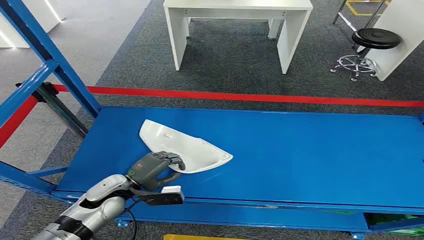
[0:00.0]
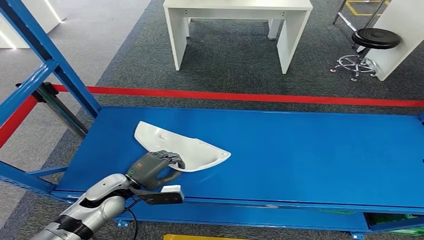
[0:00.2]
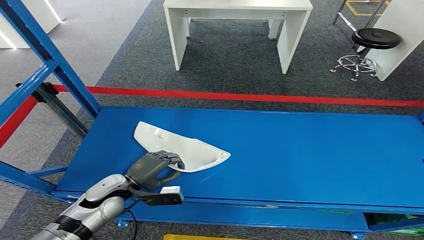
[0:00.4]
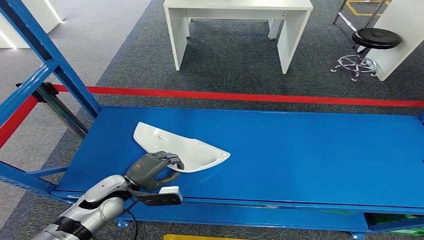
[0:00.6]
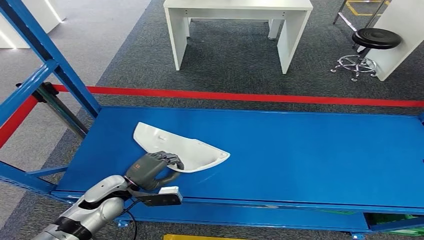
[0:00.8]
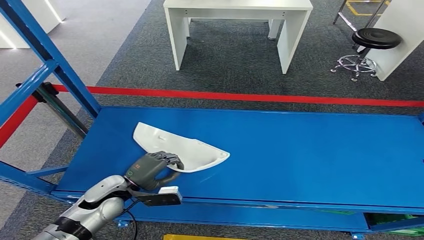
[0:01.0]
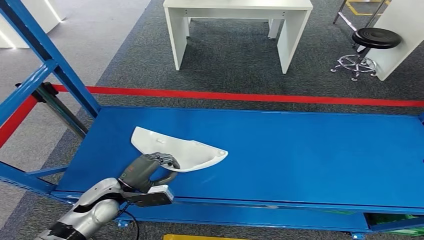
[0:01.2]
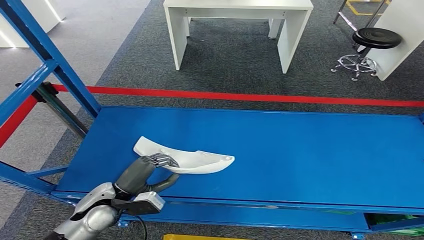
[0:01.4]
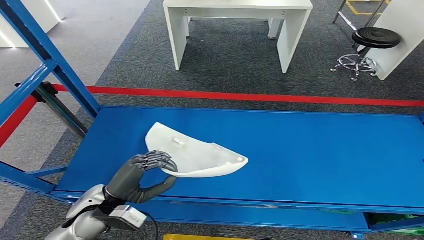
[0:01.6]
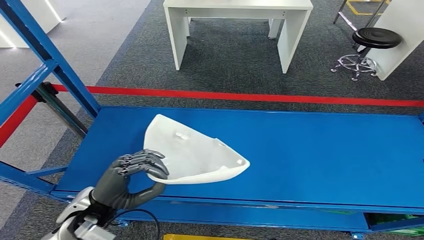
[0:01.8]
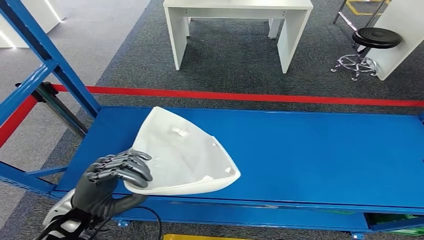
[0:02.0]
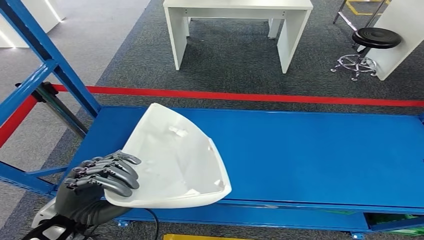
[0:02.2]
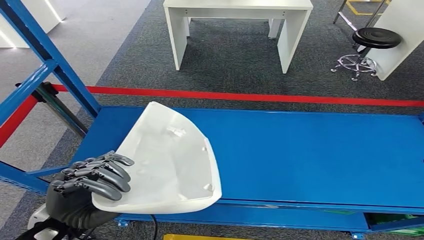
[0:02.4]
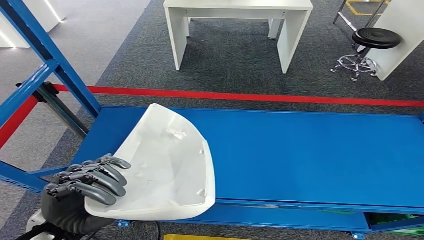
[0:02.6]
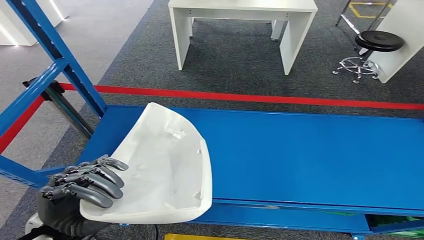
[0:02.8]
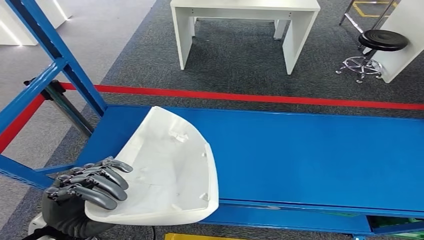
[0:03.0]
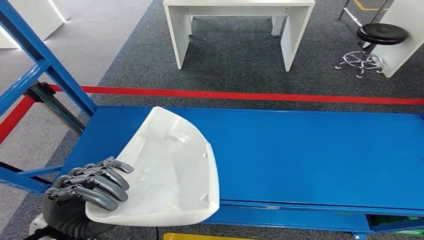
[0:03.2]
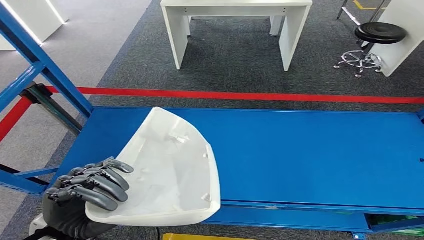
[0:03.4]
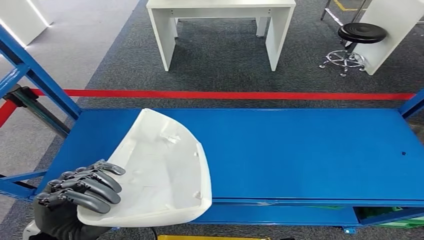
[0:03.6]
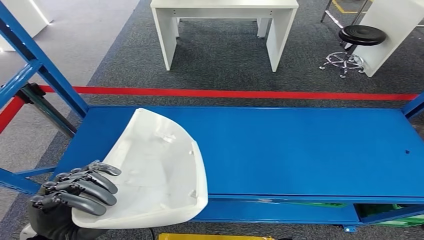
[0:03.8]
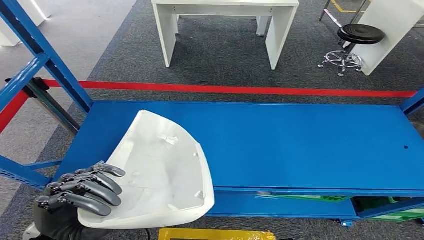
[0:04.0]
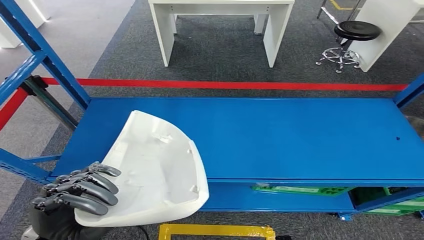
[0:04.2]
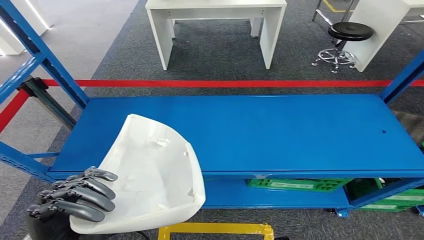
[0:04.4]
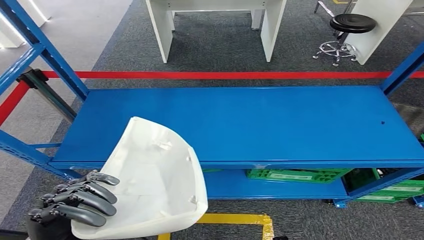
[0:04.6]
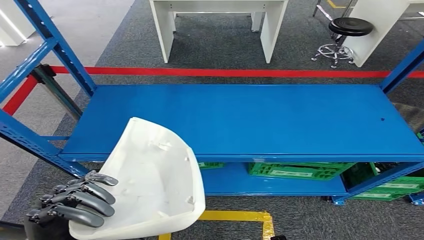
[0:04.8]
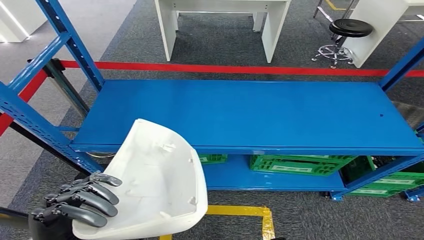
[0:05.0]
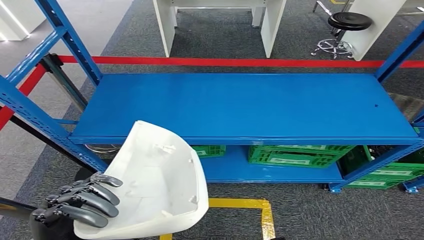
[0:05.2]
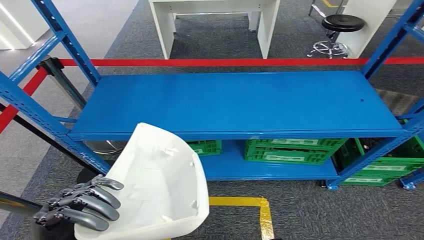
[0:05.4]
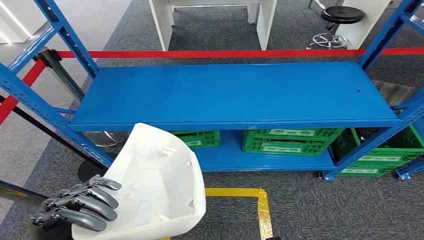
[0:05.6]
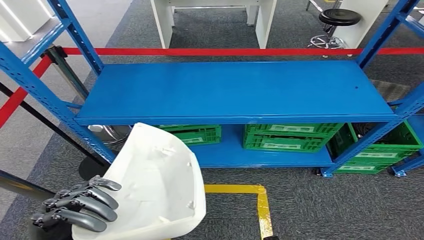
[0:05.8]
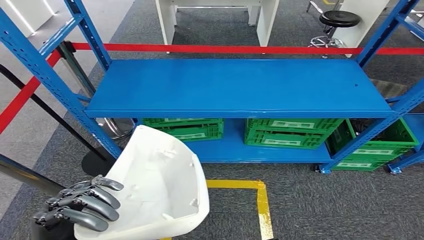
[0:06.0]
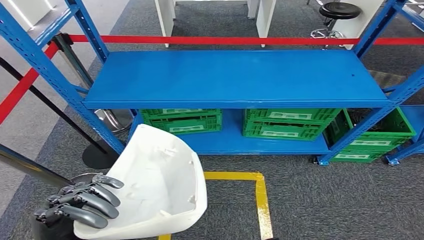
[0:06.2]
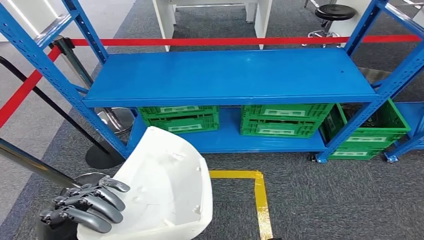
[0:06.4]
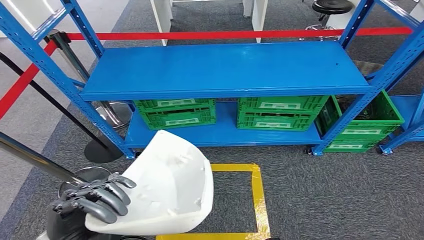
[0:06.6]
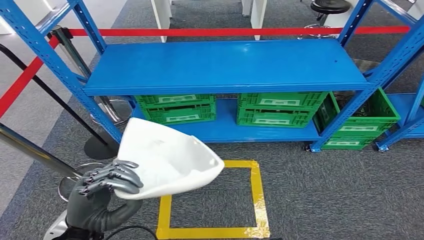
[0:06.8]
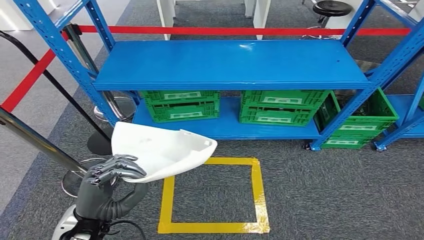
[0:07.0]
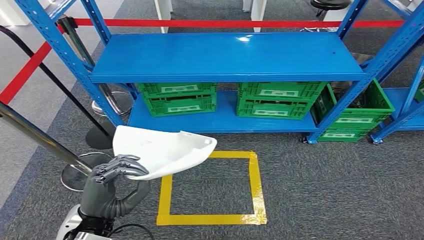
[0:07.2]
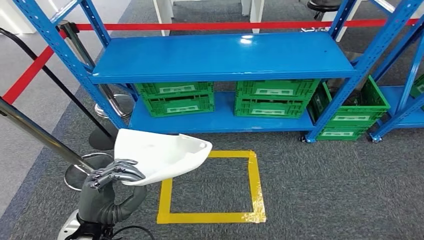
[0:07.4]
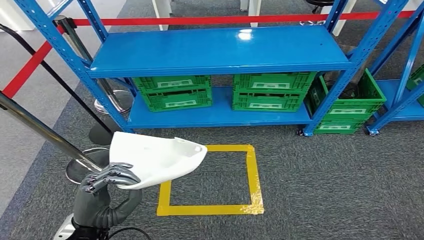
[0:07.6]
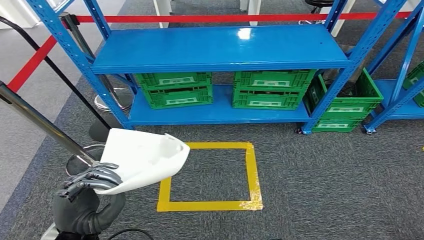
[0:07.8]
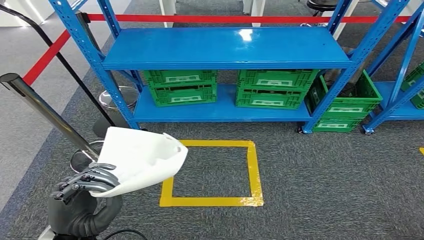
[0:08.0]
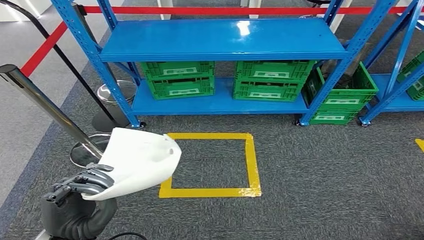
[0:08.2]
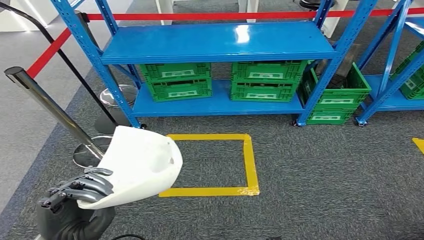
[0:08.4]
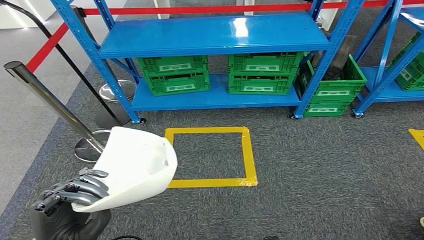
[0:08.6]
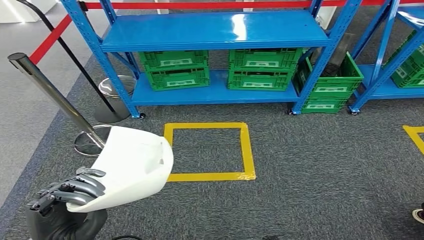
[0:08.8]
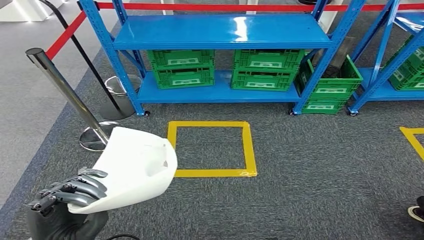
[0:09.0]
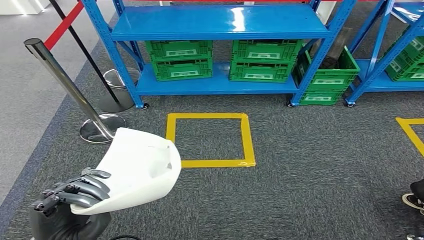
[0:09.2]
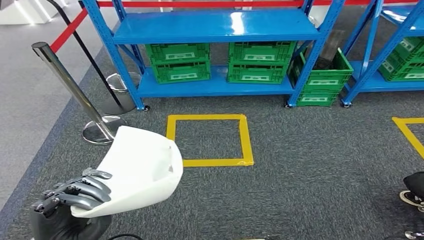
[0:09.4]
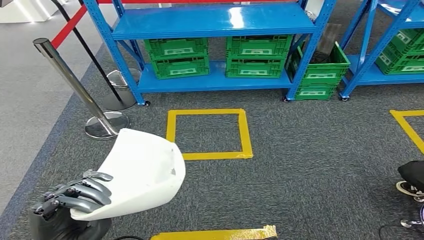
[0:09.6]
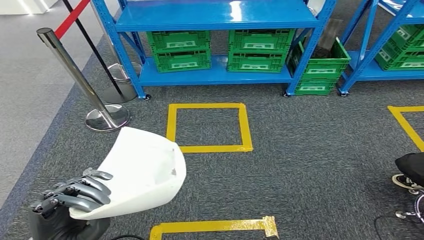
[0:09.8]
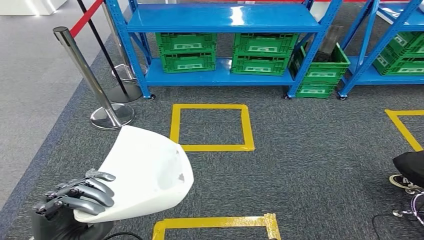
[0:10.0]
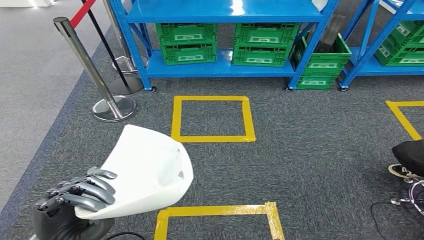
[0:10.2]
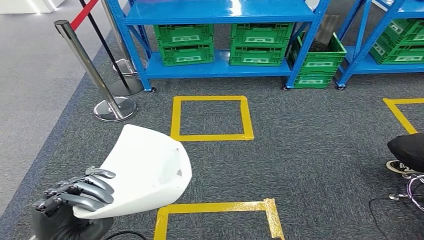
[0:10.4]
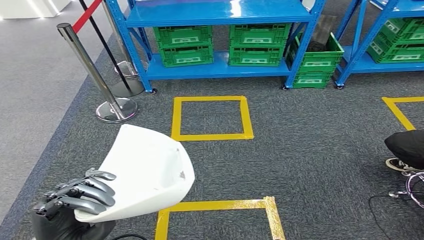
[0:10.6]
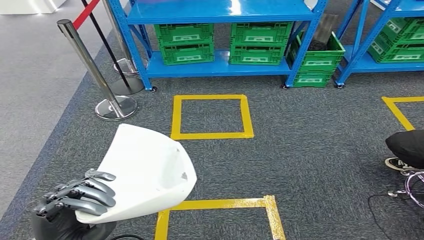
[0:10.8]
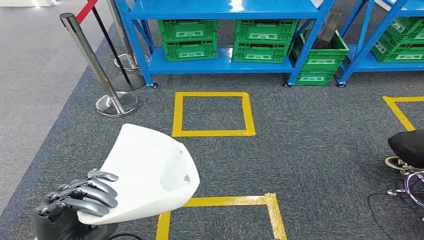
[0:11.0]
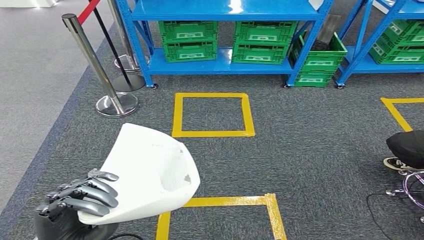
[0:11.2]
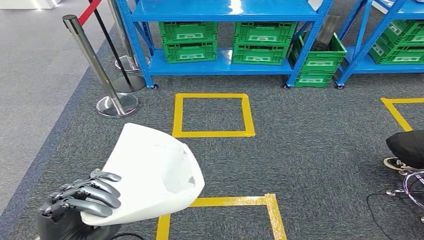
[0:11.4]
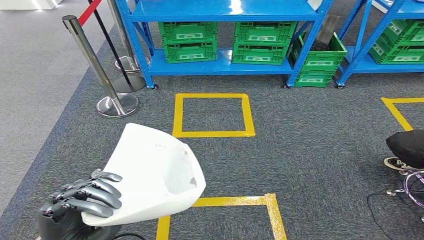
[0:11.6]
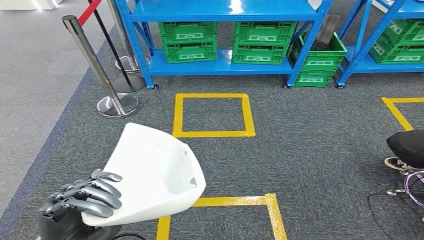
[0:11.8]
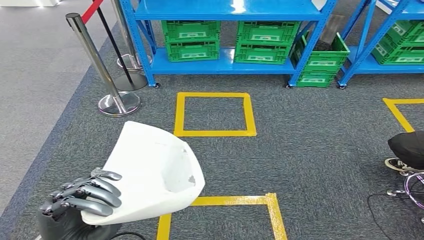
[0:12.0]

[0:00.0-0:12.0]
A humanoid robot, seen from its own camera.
Step, 0:00.0 to 0:02.2: Pick up the small component from the shelf.

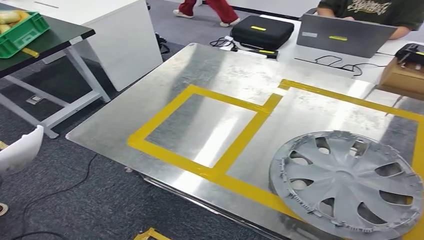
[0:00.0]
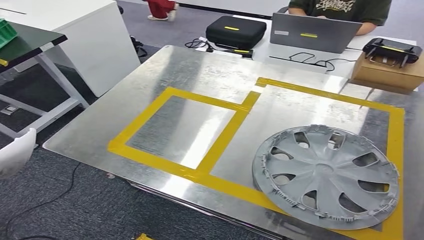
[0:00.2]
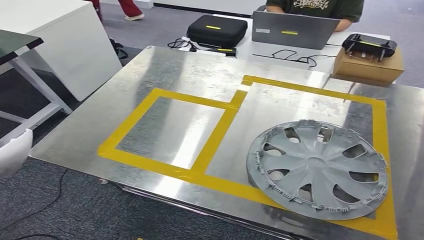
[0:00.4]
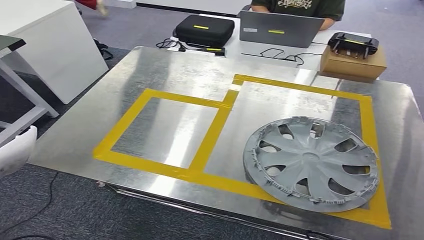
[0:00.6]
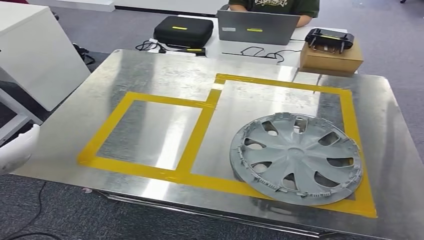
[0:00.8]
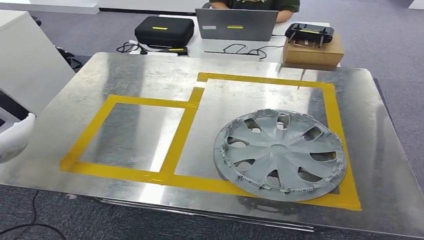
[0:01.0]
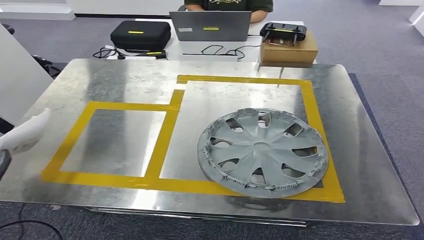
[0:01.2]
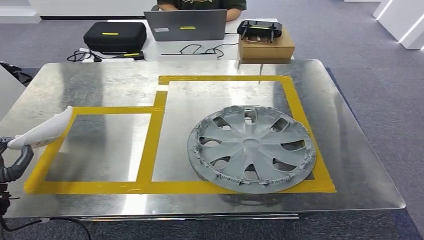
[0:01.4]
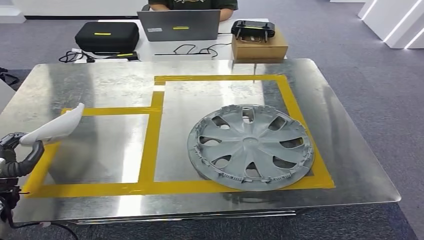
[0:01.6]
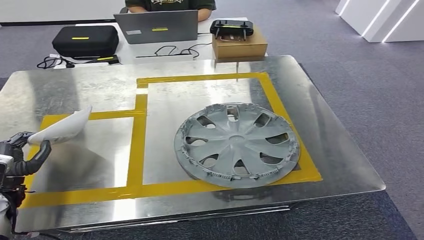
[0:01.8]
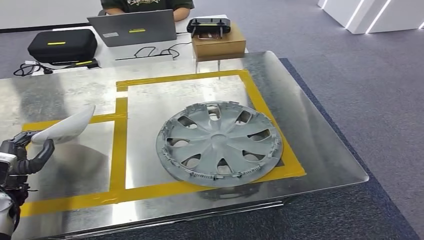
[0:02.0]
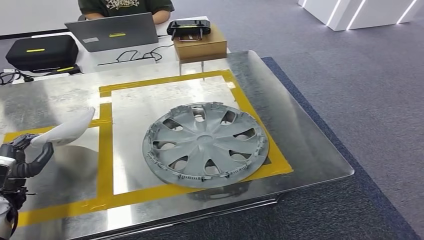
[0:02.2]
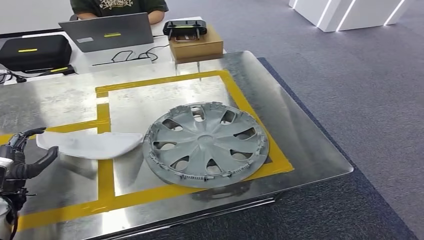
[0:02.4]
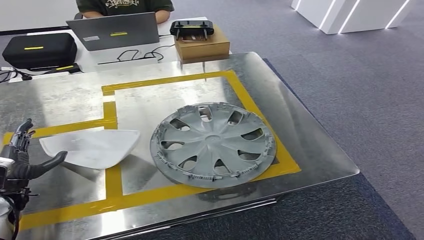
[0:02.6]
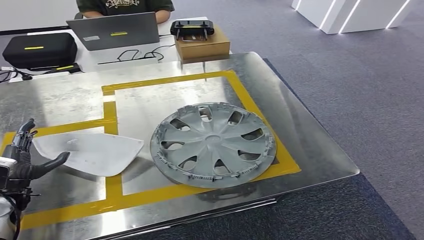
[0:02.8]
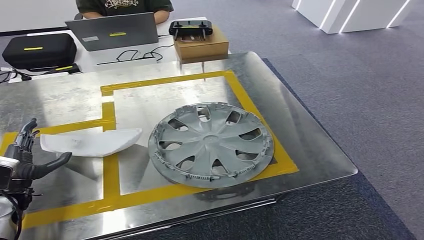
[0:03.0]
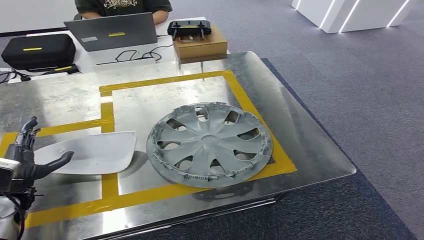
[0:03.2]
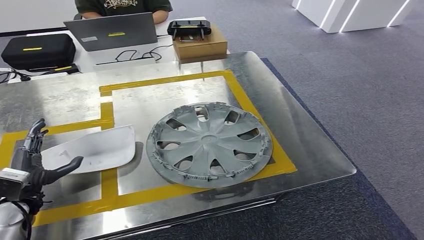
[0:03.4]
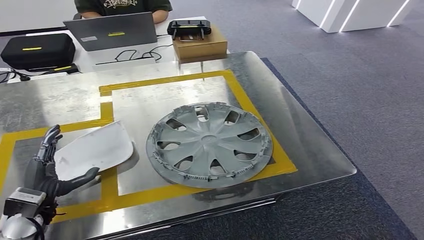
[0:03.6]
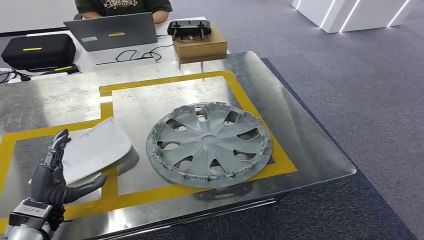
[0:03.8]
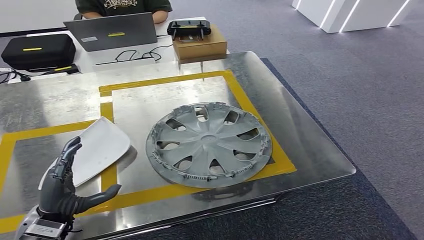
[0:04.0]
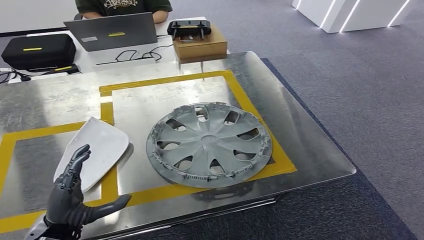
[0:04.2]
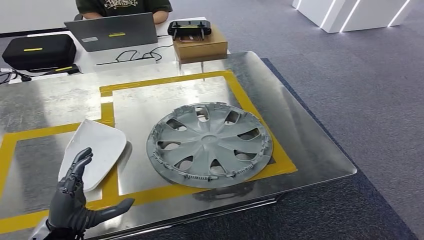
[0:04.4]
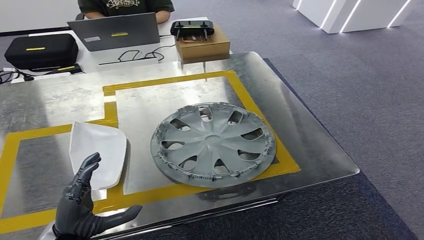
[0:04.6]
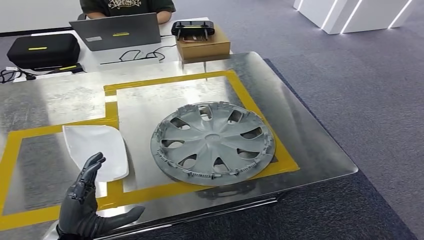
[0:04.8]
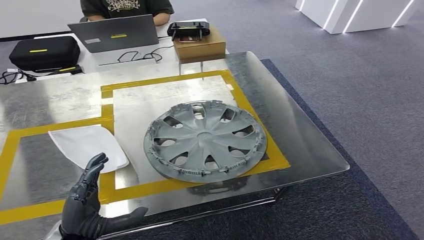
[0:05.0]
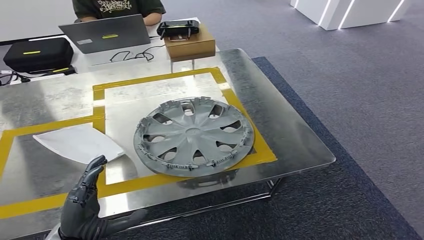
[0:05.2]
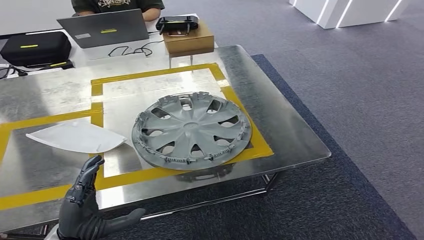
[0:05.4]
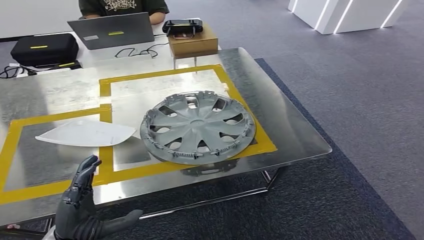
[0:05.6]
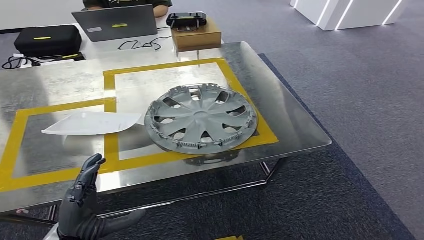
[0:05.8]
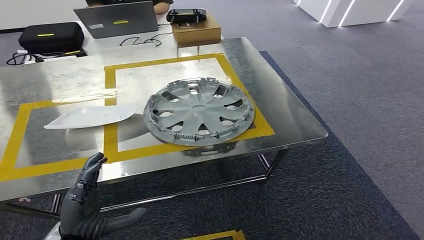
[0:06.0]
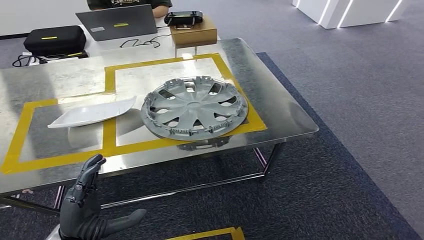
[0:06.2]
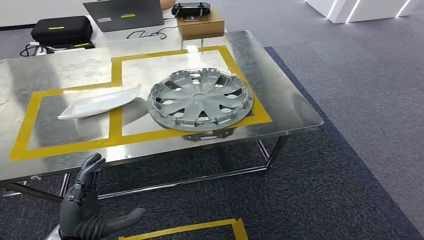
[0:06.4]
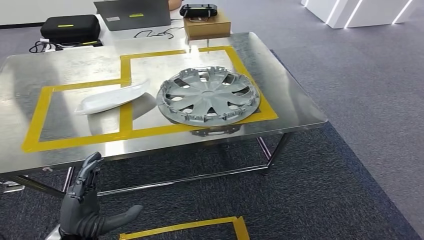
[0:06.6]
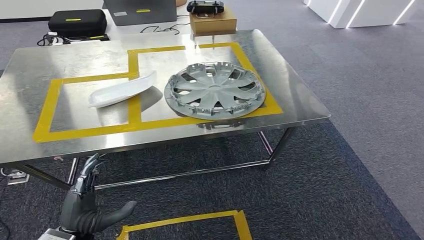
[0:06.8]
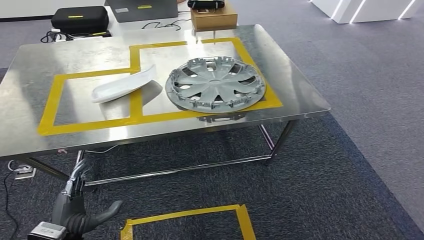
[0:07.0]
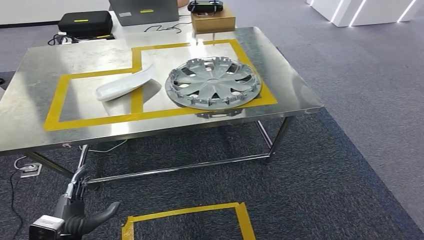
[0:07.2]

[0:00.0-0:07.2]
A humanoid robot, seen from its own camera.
Step, 0:01.4 to 0:03.8: Insert the small component into the corresponding slot on the workbench.
